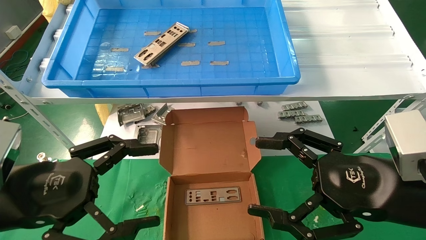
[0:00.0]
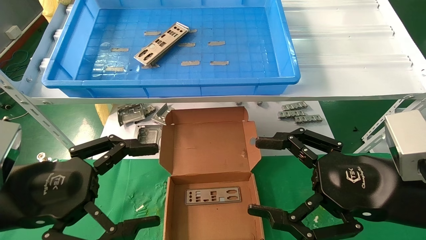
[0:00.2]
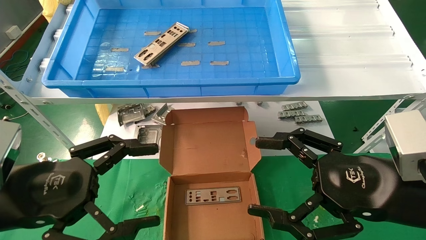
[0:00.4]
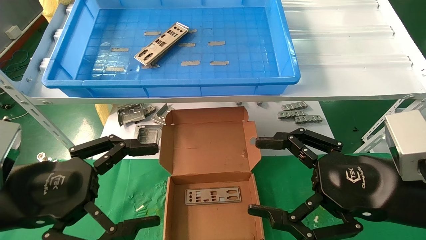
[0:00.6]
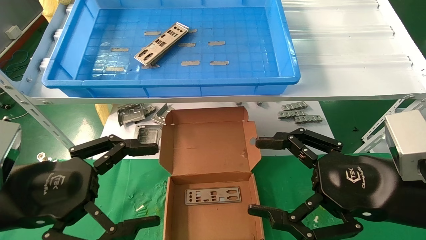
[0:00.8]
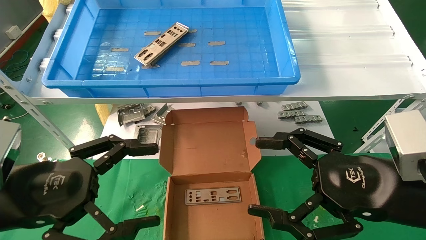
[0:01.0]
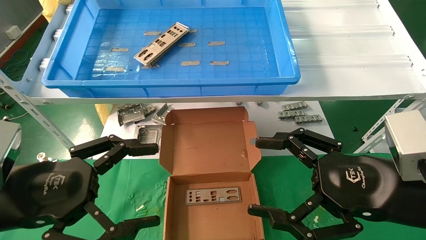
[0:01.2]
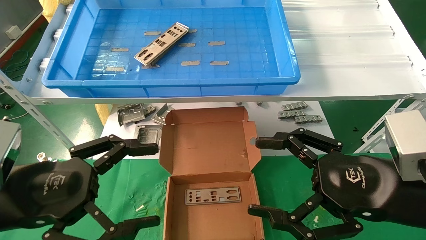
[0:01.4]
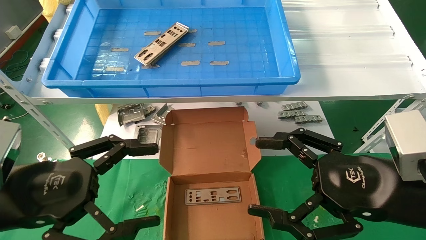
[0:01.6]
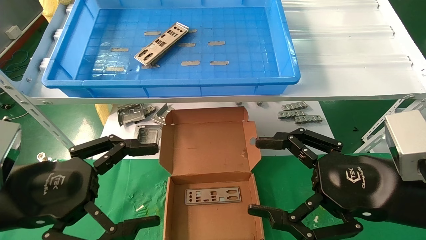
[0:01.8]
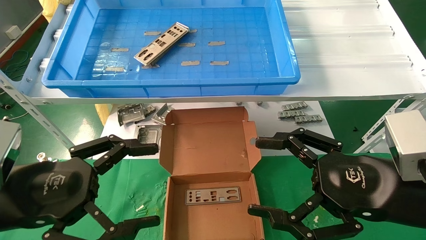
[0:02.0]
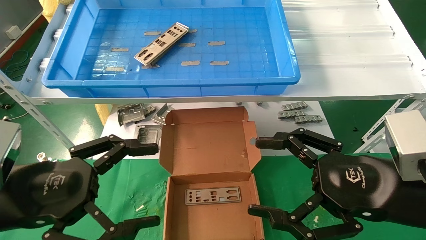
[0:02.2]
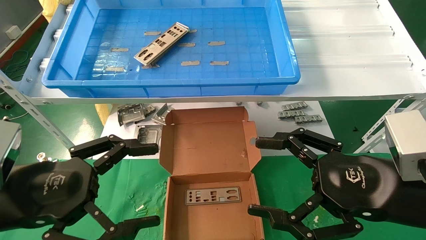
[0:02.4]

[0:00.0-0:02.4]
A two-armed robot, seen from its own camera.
Task of the whole recording: pick up the parts on the tray and put them in the cardboard box.
0:00.0 to 0:02.4: Neither gripper changes place.

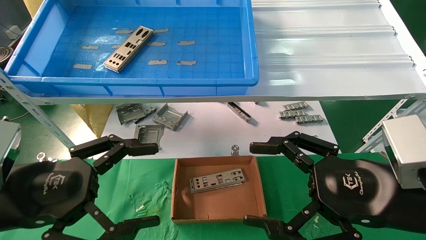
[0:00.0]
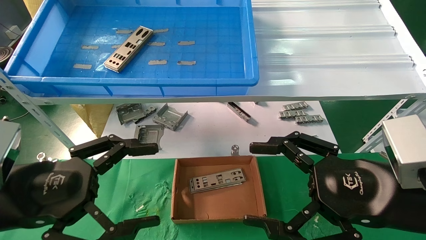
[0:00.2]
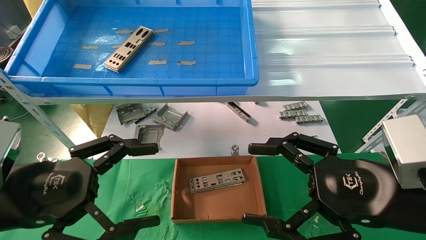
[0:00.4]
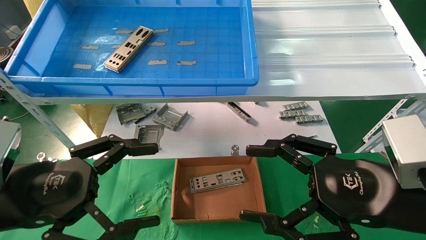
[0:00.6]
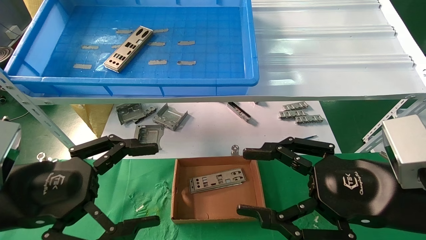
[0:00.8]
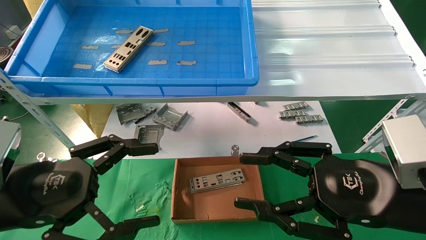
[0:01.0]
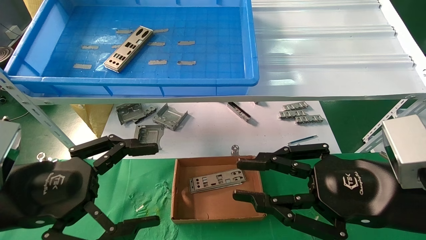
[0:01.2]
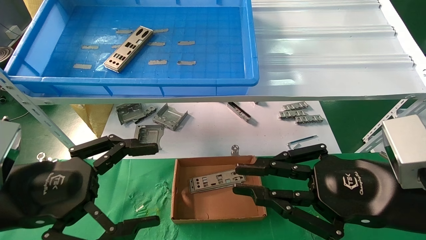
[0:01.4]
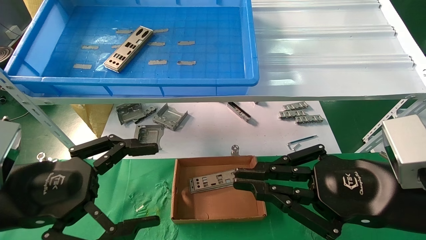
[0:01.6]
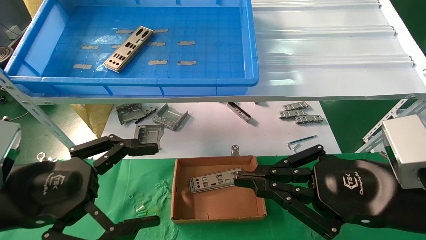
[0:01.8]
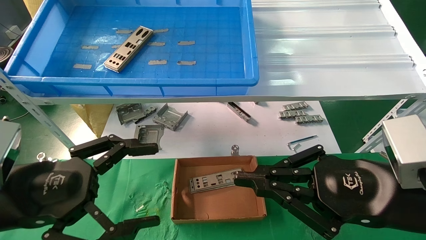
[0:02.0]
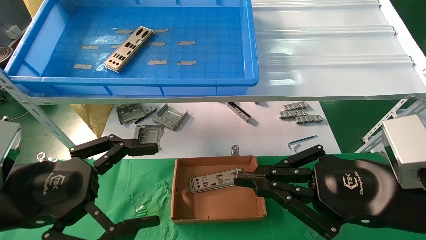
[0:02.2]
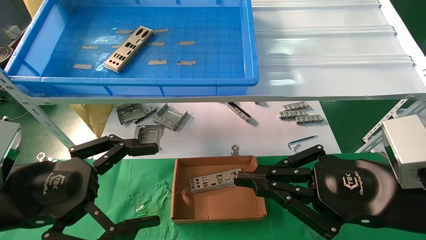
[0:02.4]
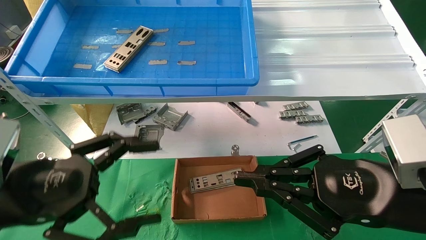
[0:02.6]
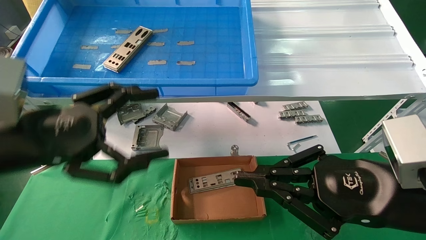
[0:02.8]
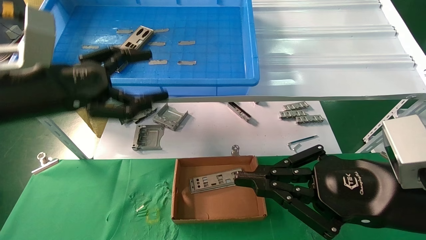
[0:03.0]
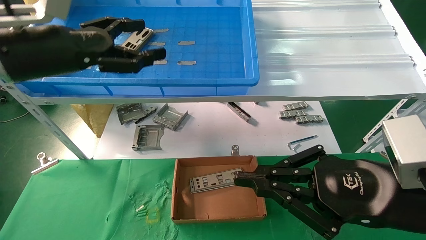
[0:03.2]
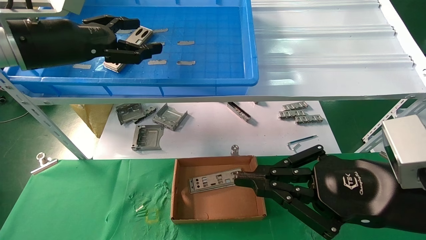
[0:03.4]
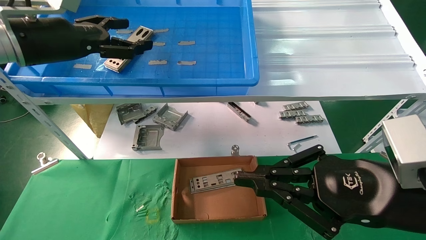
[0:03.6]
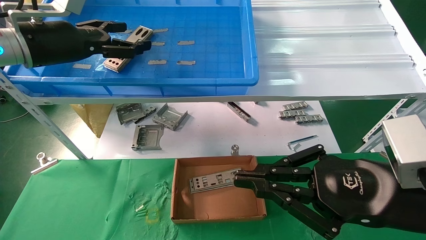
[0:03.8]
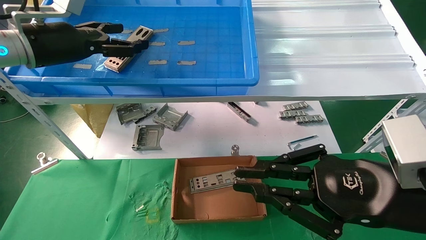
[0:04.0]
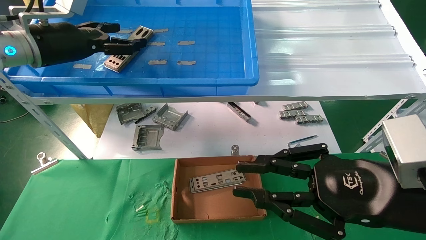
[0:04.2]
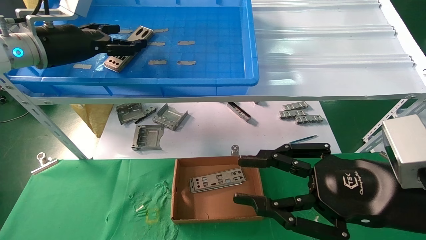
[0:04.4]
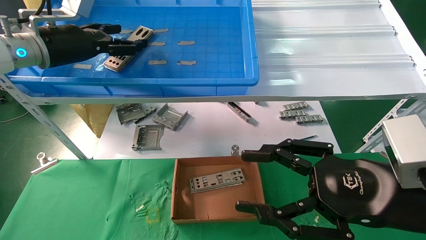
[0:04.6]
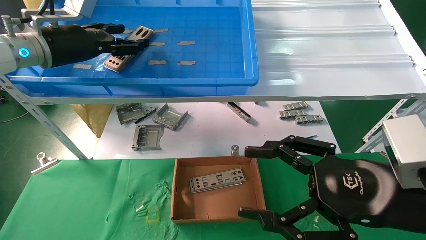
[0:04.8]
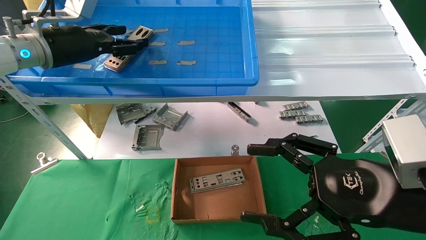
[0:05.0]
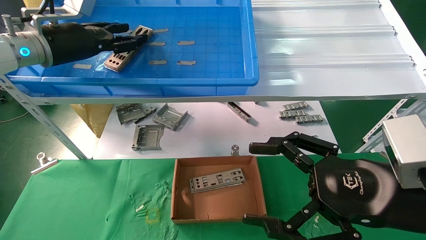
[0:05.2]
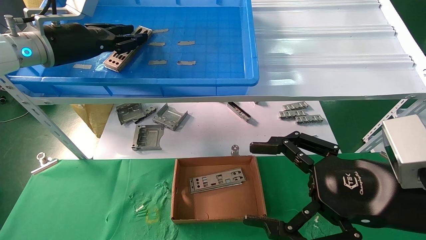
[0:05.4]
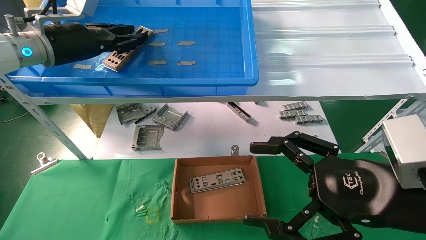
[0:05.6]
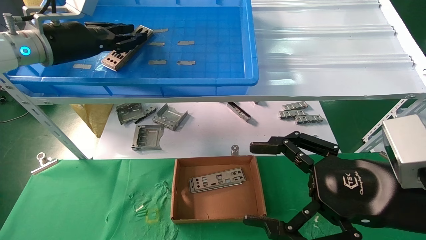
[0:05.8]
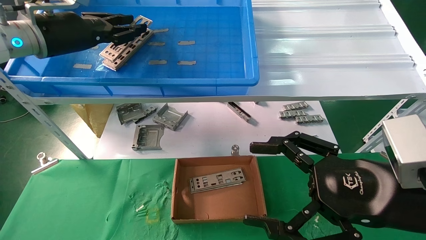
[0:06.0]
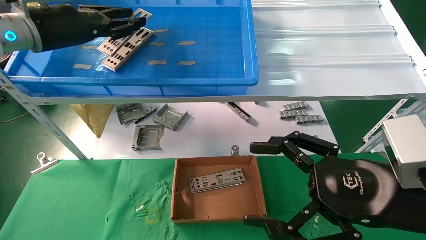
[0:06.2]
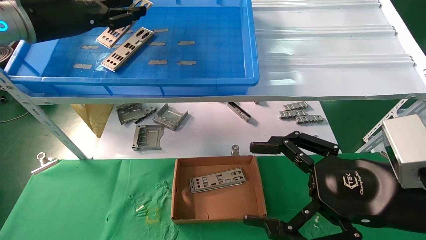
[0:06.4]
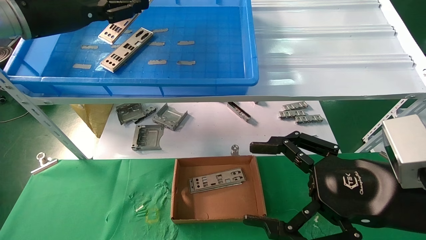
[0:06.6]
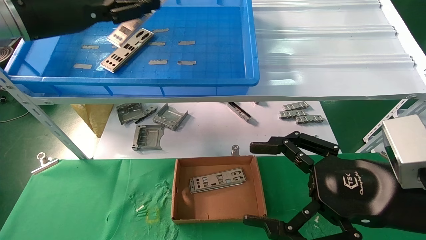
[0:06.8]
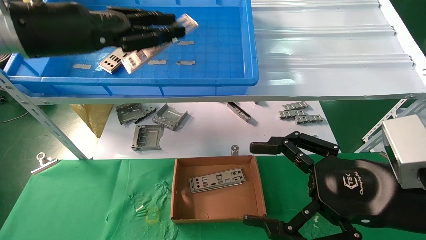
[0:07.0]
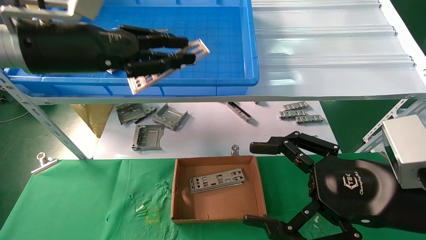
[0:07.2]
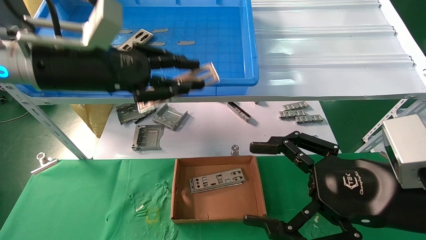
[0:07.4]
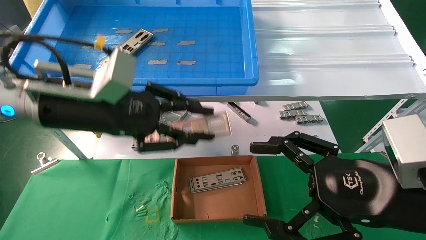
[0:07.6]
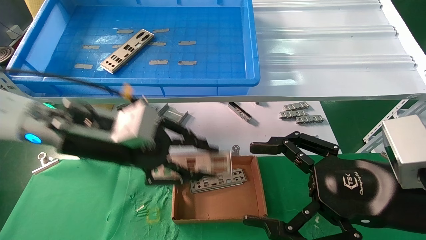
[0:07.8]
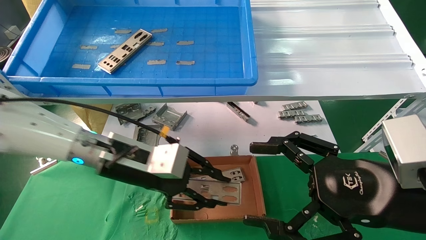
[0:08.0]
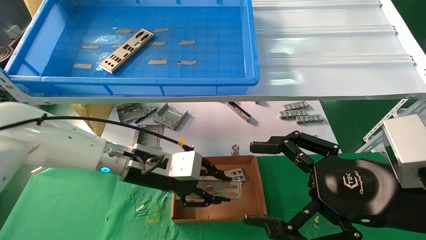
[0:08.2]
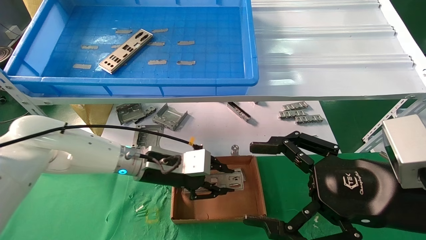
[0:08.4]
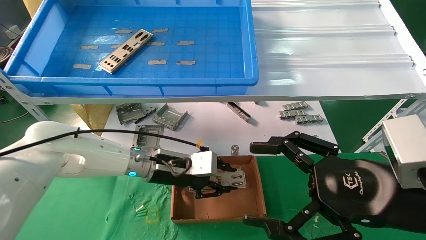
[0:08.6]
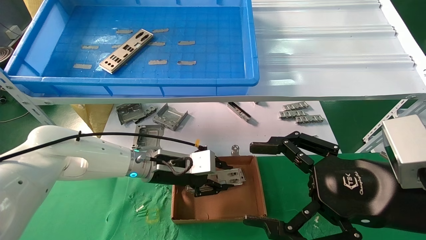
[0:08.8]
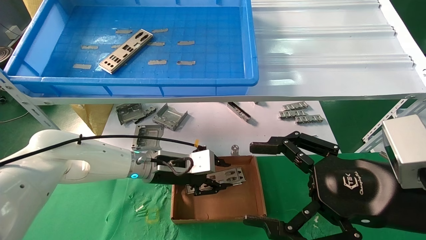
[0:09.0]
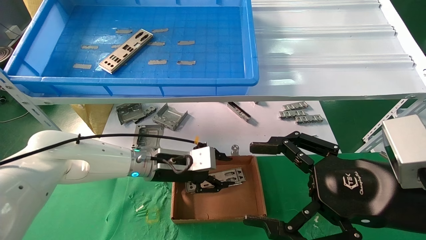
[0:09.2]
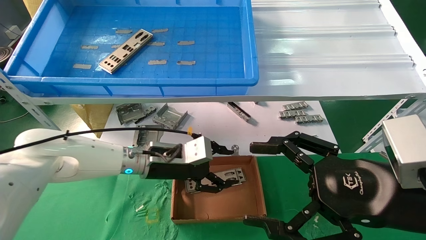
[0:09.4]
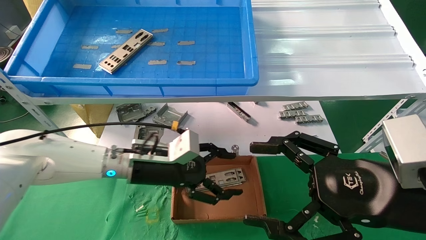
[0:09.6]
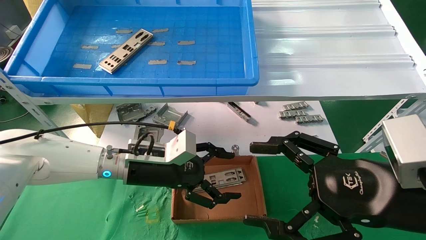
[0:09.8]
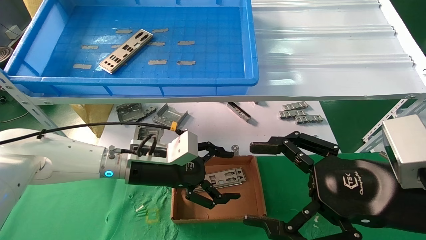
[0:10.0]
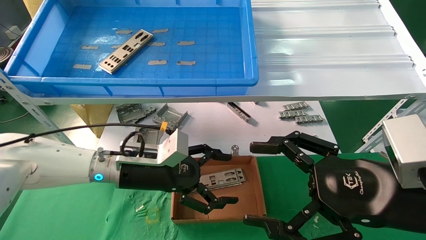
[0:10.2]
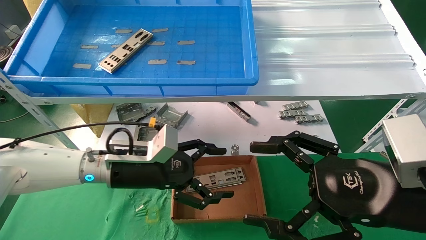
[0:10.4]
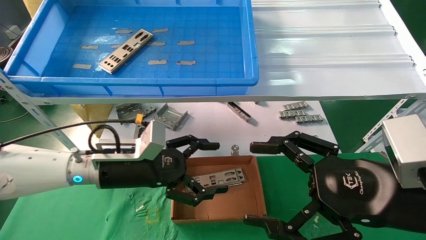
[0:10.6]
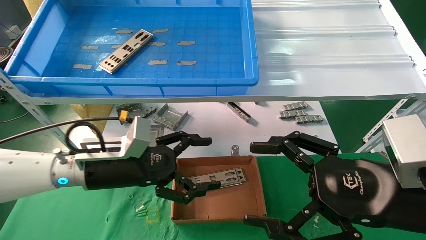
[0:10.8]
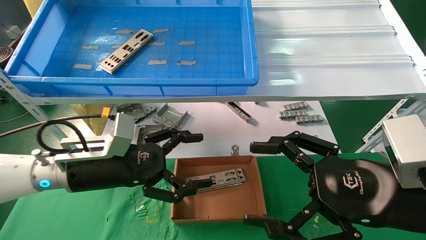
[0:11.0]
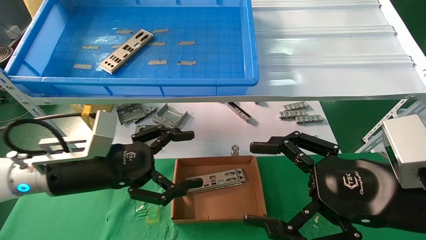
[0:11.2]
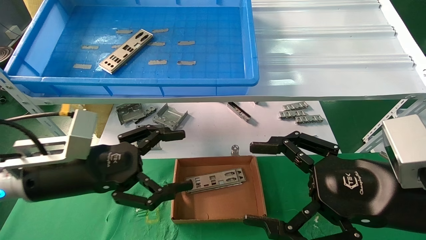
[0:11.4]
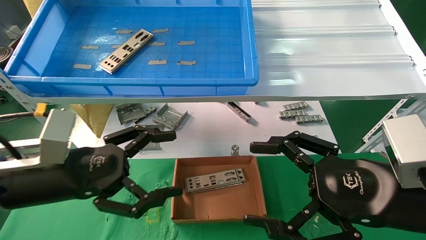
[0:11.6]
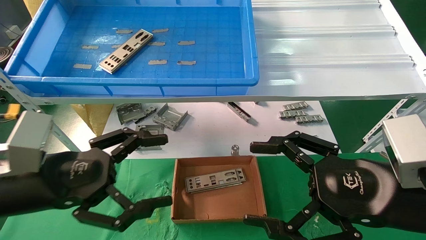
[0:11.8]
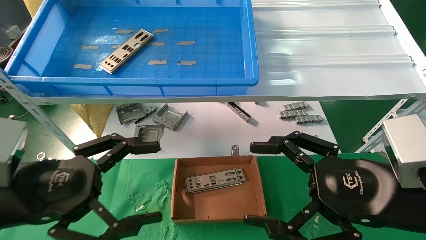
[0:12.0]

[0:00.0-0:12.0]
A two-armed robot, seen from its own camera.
Task of the whole recording: pick up the parts on the tray and put them in the cardboard box.
Step, 0:03.0 to 0:05.8: Pick up the IO bracket from the container box.
Step, 0:06.0 to 0:08.8: Place the IO bracket into the ingredient slot.
0:00.0 to 0:01.6: The right gripper closes.
0:01.6 to 0:03.0: The left gripper travels upward and forward by some 15 cm.
0:03.0 to 0:04.4: The left gripper travels forward and upward by roughly 15 cm.
0:04.4 to 0:06.0: The right gripper opens up, while the left gripper closes.
0:06.0 to 0:07.6: The left gripper is displaced backward, downward and to the right by about 15 cm.
0:07.6 to 0:09.0: The left gripper heads downward, forward and to the right, covering about 25 cm.
0:09.0 to 0:10.4: The left gripper shifts some 5 cm backward, and opens up.
0:10.4 to 0:12.0: The left gripper is displaced backward and to the left by some 20 cm.

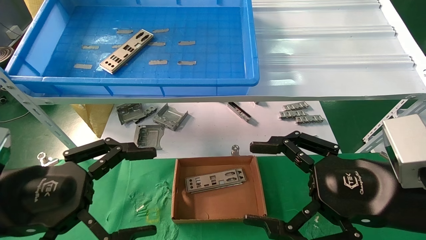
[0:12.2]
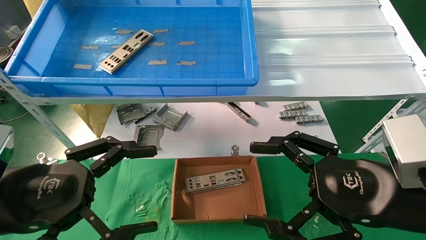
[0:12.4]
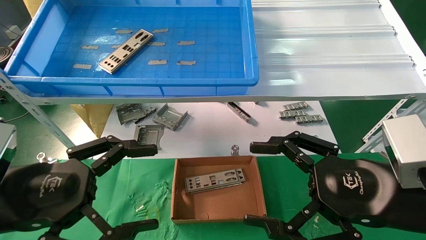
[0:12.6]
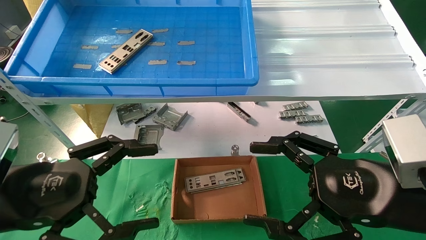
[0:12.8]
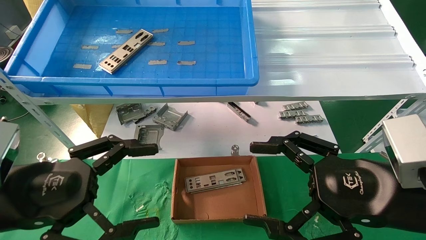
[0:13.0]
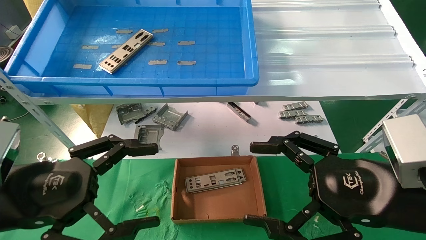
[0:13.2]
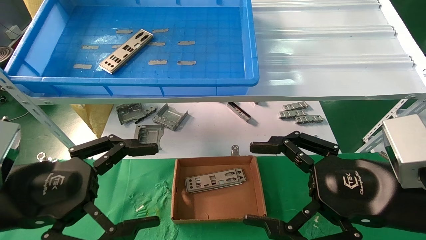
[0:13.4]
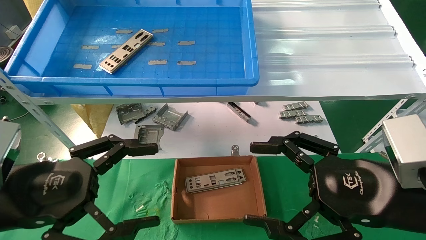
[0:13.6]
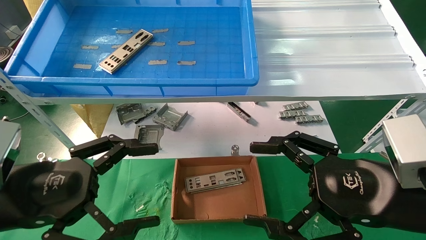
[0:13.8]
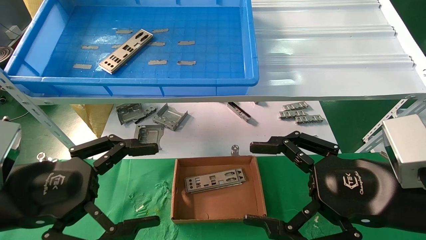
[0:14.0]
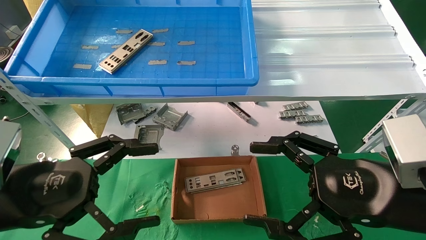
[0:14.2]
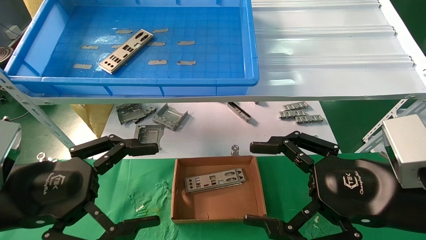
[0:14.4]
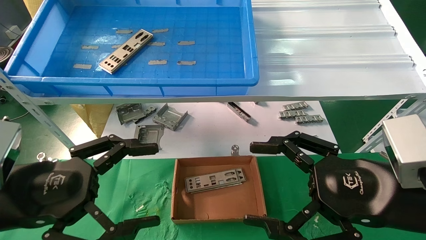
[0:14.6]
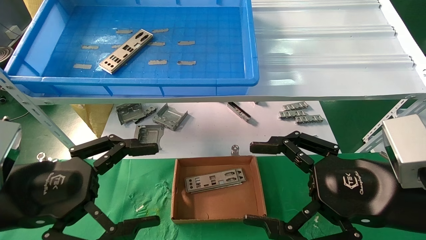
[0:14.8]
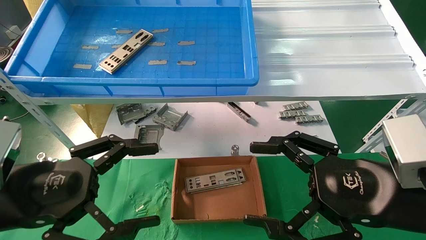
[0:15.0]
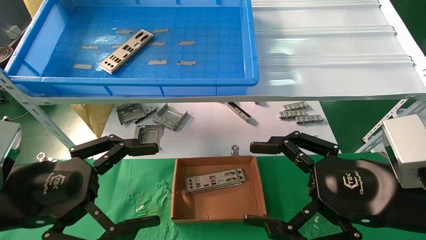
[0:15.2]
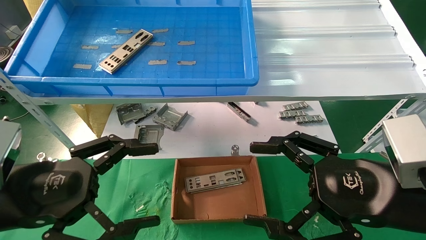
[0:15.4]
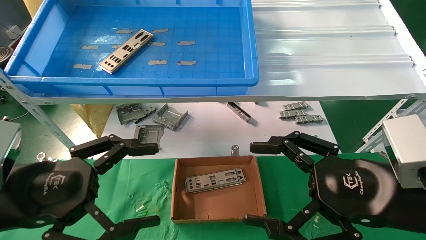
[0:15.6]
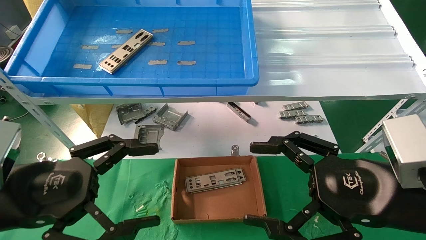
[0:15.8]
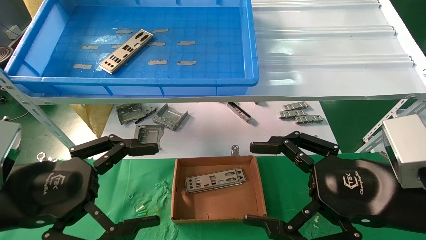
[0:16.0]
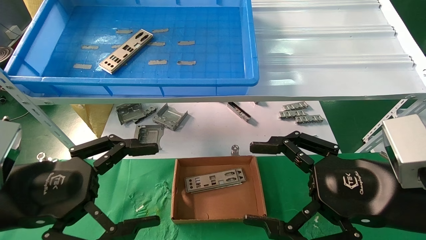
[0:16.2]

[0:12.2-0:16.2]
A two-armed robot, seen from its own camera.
Task of the whole recording: pick up the parts on the tray and put them in the cardboard box.
0:12.2 to 0:16.2: The two grippers keep their place.
